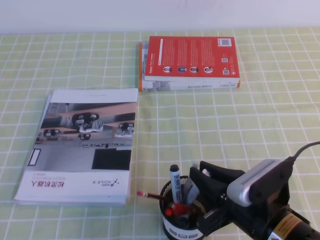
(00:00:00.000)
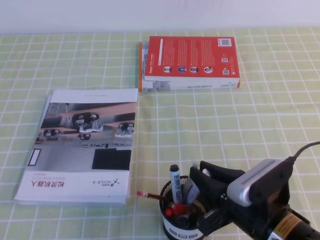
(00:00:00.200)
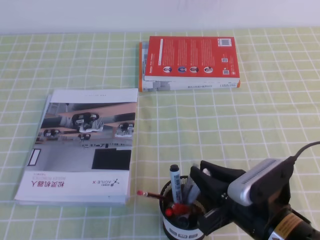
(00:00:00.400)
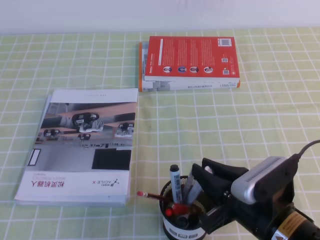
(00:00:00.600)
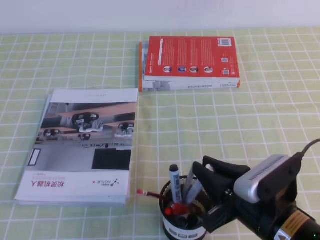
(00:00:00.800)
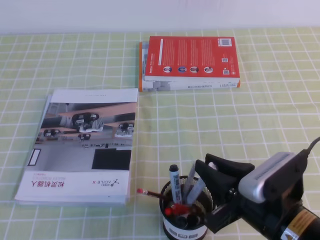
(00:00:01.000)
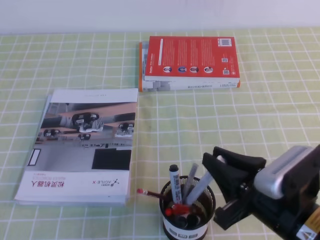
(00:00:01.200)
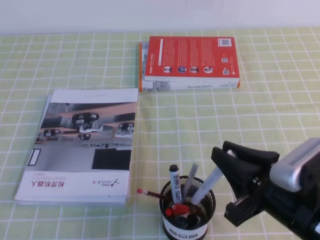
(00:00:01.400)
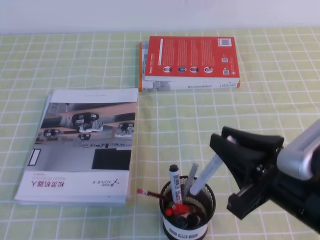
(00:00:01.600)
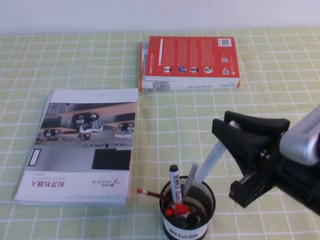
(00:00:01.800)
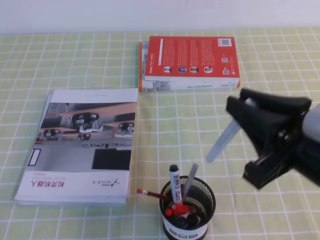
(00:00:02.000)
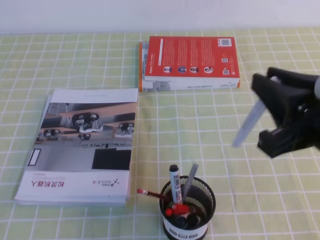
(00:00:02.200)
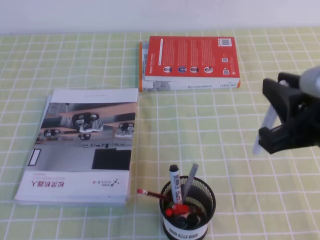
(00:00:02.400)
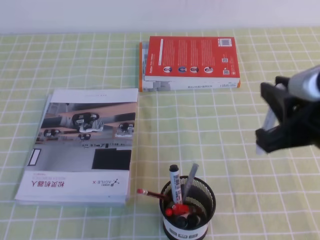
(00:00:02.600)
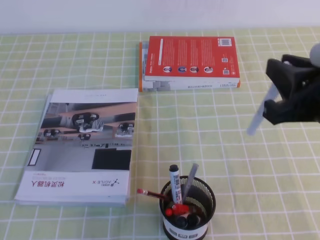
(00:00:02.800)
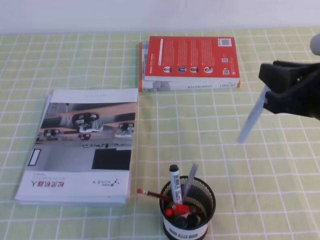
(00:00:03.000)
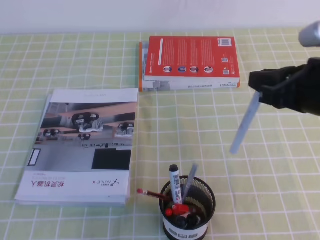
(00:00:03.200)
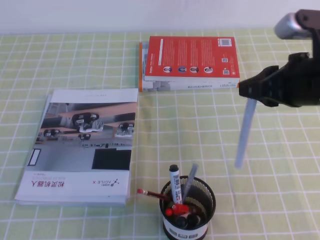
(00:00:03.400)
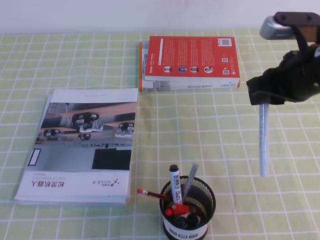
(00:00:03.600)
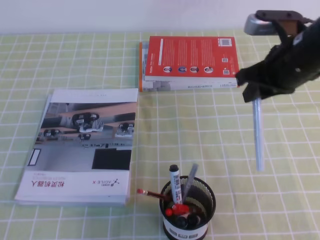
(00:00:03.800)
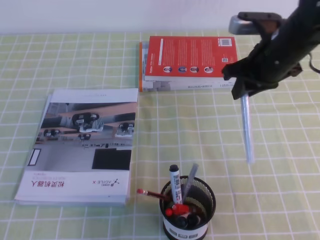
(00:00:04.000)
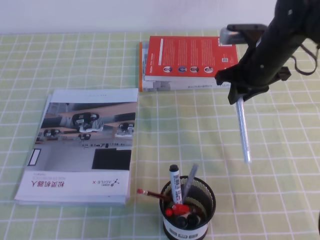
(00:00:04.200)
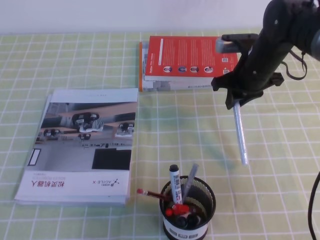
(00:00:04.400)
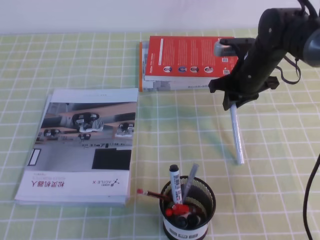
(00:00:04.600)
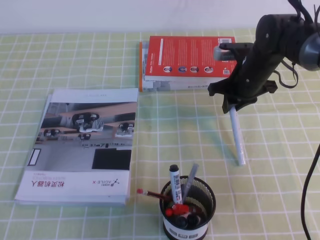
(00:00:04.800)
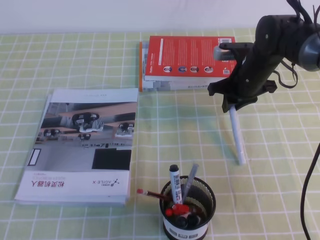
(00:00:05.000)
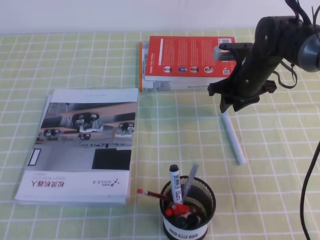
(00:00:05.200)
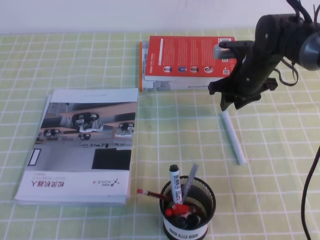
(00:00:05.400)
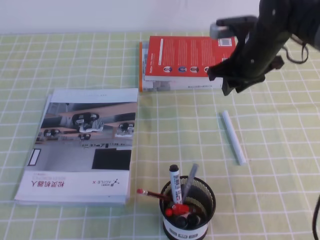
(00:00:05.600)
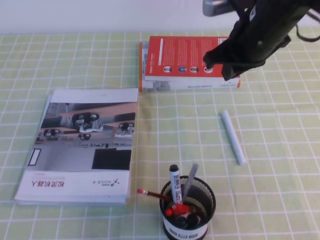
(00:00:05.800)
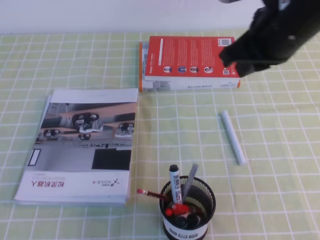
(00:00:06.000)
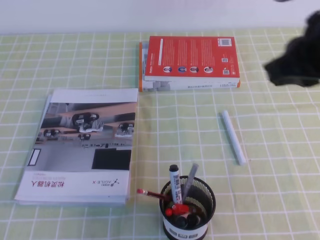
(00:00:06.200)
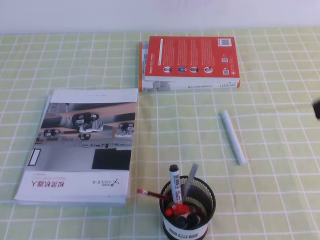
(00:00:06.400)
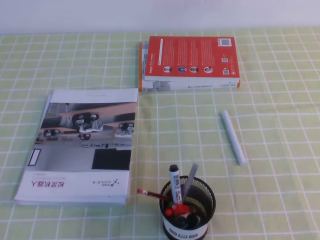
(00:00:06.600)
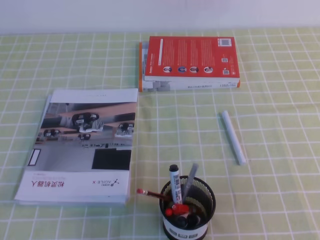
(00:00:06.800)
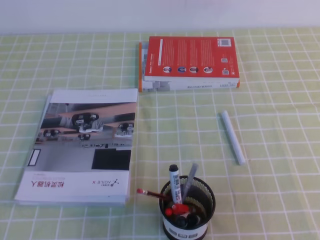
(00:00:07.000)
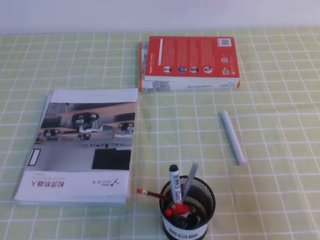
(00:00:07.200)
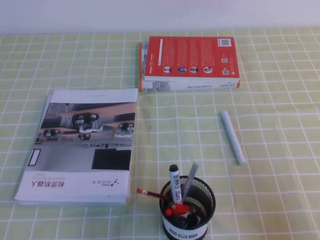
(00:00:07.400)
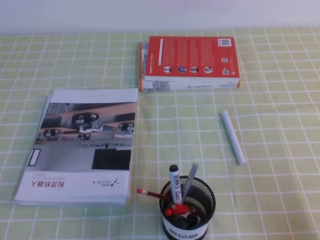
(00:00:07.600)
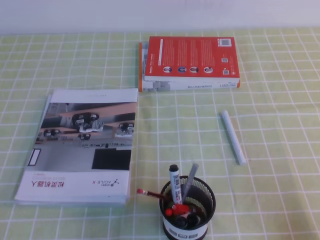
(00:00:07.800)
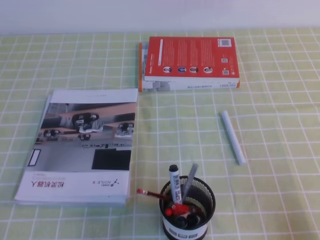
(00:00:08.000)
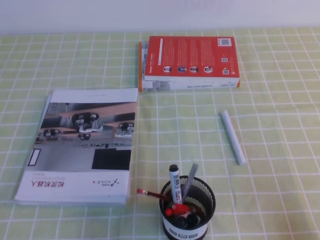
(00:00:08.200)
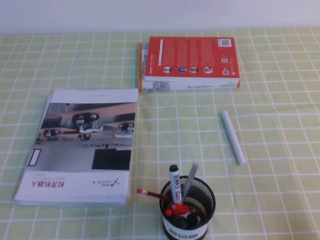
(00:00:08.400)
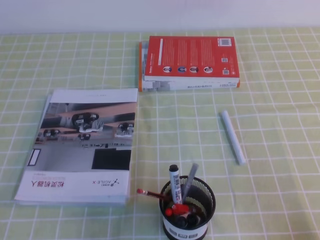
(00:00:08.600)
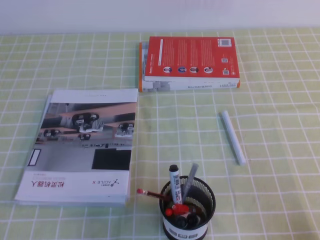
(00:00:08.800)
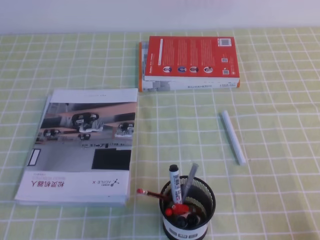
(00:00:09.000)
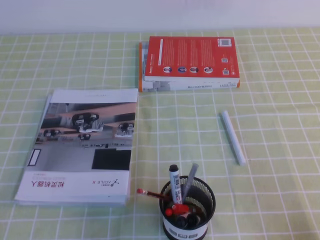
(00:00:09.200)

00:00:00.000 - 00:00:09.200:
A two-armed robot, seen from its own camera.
Step, 00:00:00.000 - 00:00:09.200: Pick up the pen from the pen holder.
00:00:00.000 - 00:00:01.600: The right gripper travels upward by about 10 cm.
00:00:01.600 - 00:00:03.000: The right gripper shifts roughly 10 cm forward and upward.
00:00:03.000 - 00:00:04.600: The right gripper shifts roughly 25 cm forward and downward.
00:00:04.600 - 00:00:06.200: The right gripper goes about 30 cm backward and upward.
00:00:06.200 - 00:00:07.600: The right gripper is displaced downward, backward and to the right by roughly 30 cm.
